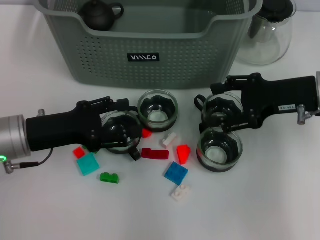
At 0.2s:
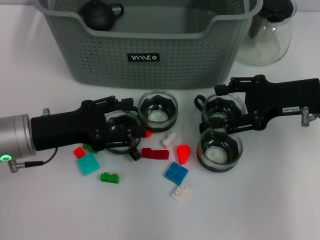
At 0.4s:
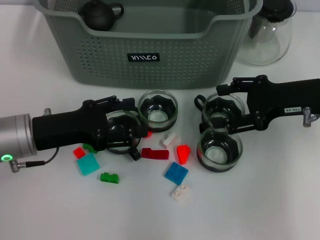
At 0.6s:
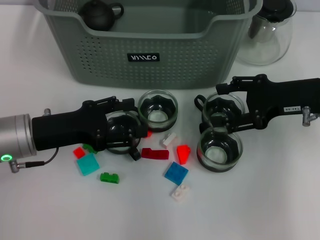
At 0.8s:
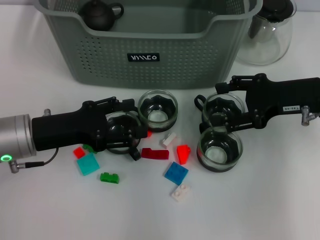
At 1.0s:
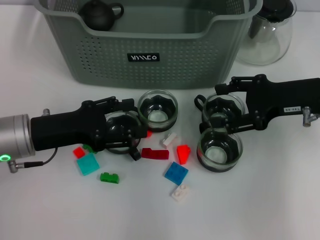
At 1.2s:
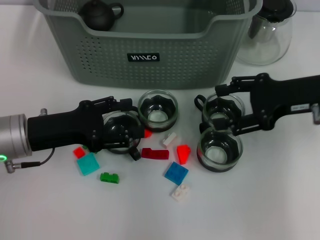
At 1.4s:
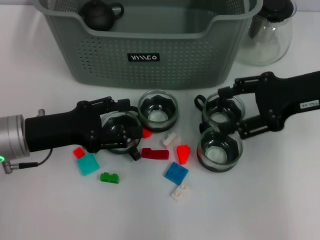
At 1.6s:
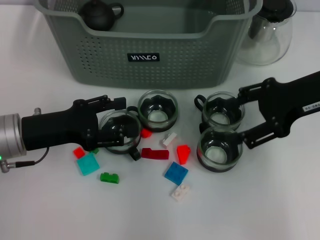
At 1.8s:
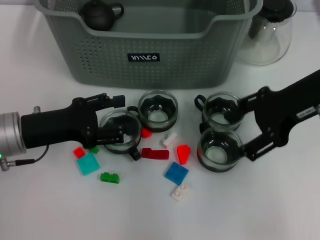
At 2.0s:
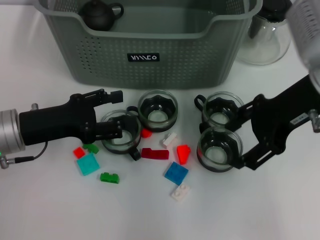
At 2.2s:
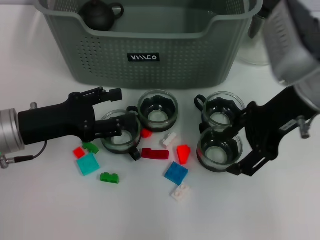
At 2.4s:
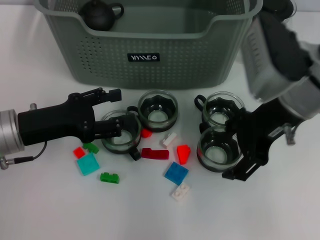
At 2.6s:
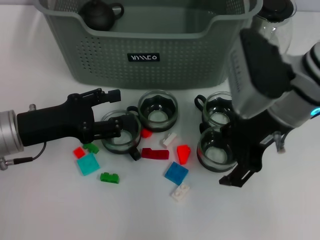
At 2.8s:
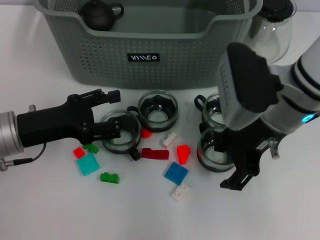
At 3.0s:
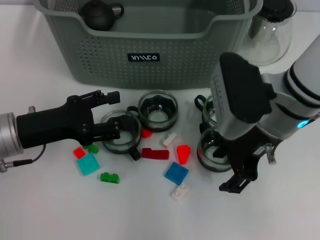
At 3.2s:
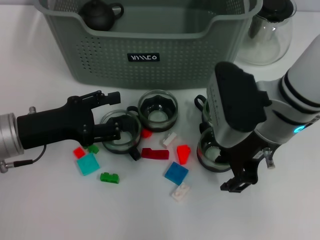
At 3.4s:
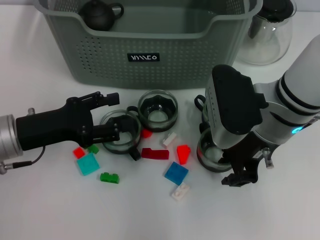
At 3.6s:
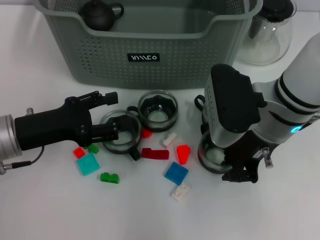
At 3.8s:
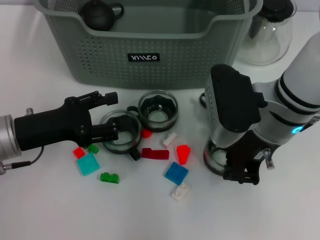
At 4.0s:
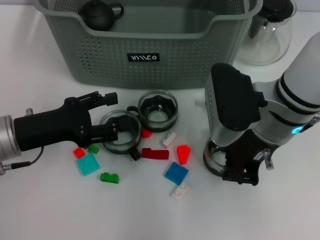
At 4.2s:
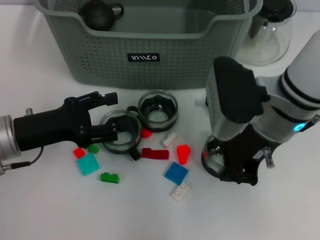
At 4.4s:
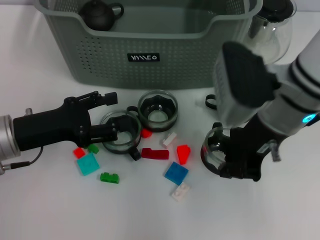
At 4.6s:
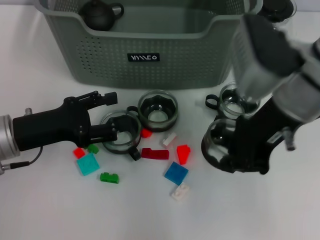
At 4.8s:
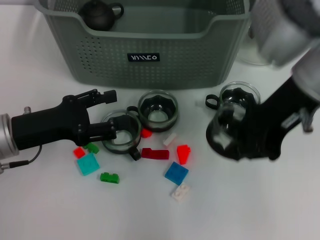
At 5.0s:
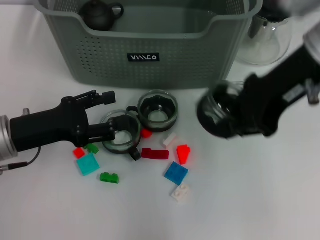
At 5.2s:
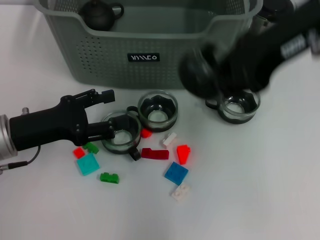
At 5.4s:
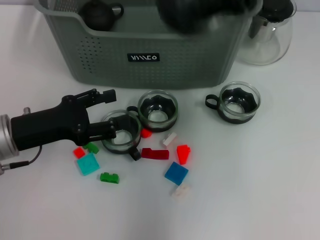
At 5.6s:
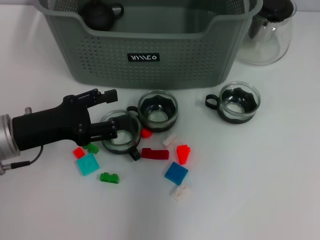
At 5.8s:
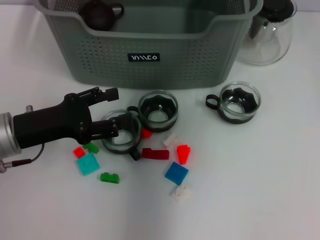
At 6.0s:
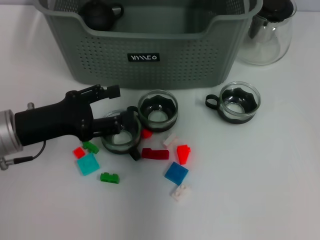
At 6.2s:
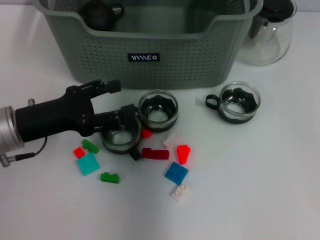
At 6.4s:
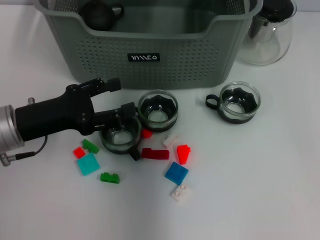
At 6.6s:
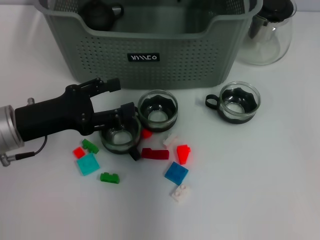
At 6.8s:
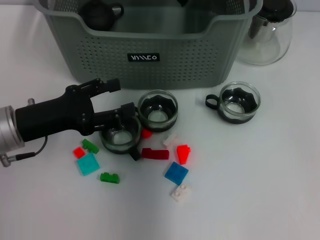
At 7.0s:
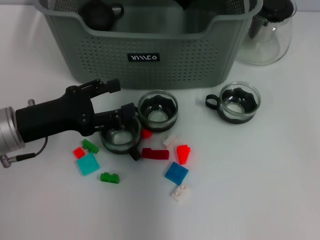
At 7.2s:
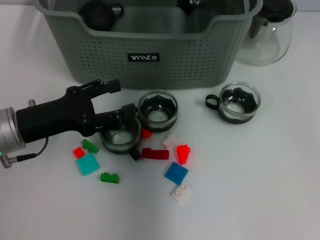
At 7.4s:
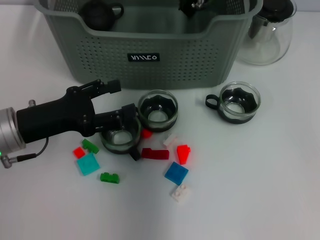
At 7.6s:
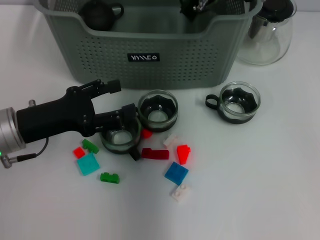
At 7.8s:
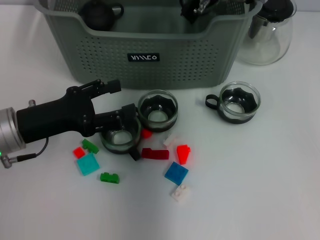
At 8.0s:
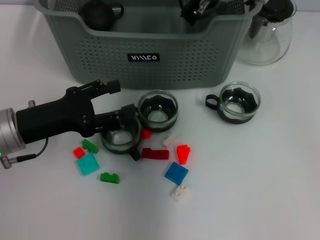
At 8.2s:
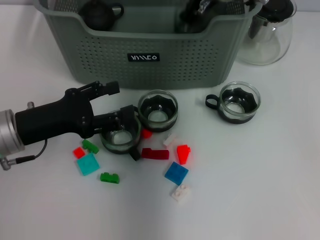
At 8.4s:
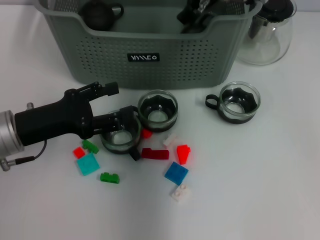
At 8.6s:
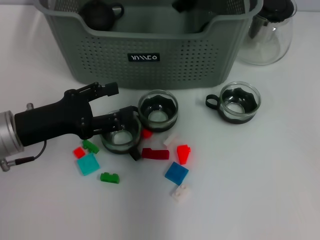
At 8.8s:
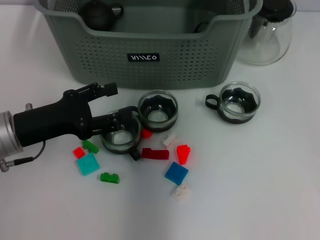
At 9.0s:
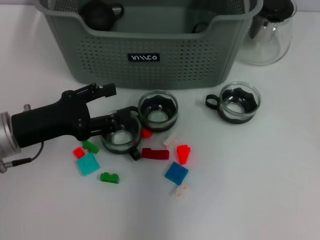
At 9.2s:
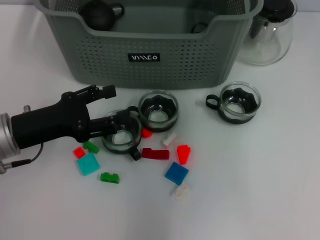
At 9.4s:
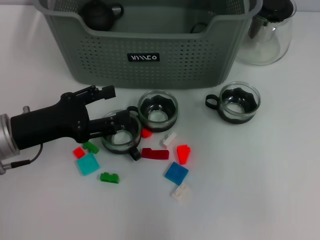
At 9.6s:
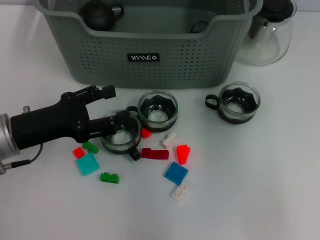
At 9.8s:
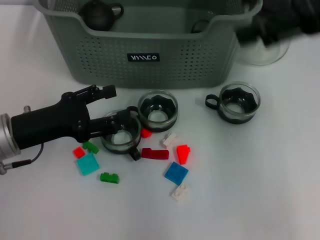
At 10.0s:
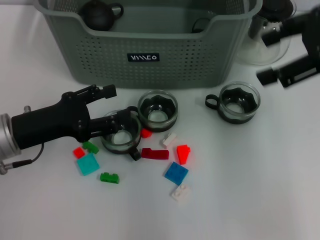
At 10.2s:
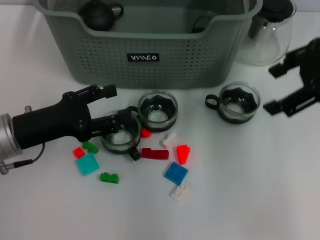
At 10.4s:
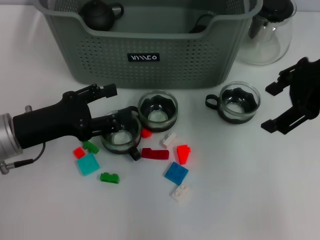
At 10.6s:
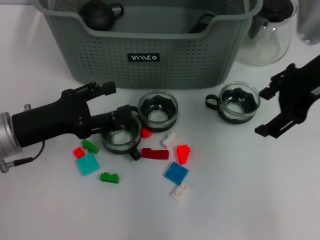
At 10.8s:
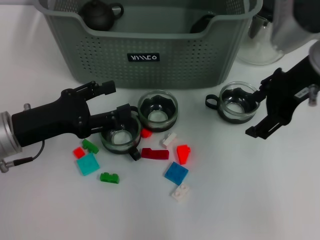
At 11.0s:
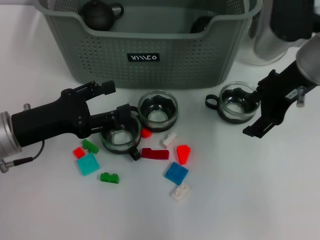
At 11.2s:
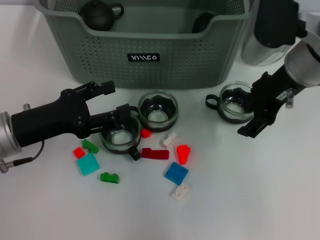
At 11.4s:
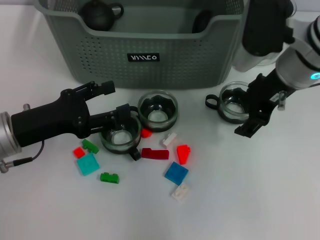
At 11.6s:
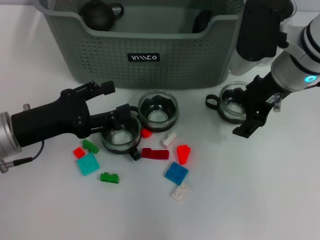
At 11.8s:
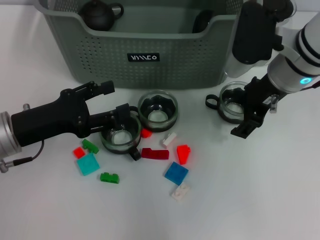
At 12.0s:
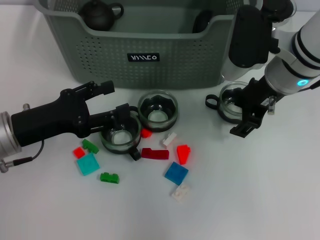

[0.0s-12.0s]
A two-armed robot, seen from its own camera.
Task of the whole recording: pick up the teacup on the table and place it into the storage bin, pick up the block on the table and place it into the storage bin.
Step, 0.0s to 3.8s: Grasp the cup with right gripper.
Step, 4.0s to 8.4s: Place the cup in the storage box with right gripper.
0.0s to 1.6s: The right gripper heads upward, covering some 5 cm.
1.6s to 3.0s: The right gripper moves to the left, roughly 10 cm.
3.0s to 4.4s: The right gripper closes.
4.4s to 6.0s: The right gripper heads forward and upward, covering some 20 cm.
6.0s to 7.6s: The right gripper is displaced downward by some 10 cm.
7.6s to 9.0s: The right gripper shifts about 15 cm upward, and opens its fingers.
9.0s to 10.4s: The right gripper moves to the right, backward and downward, roughly 20 cm, and opens.
10.4s to 12.0s: The right gripper travels downward and to the left by about 10 cm.

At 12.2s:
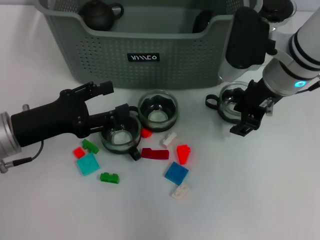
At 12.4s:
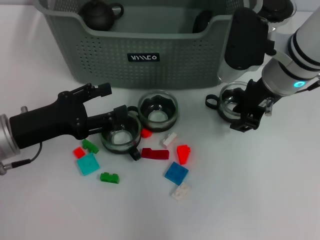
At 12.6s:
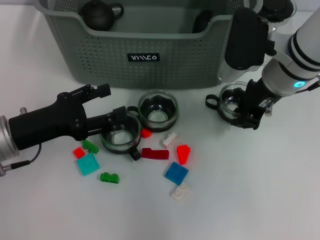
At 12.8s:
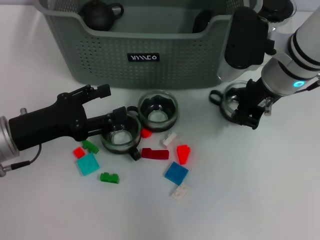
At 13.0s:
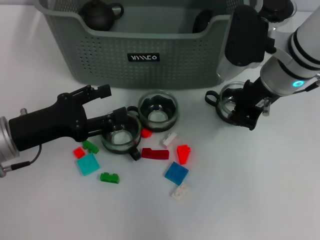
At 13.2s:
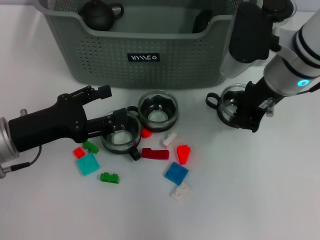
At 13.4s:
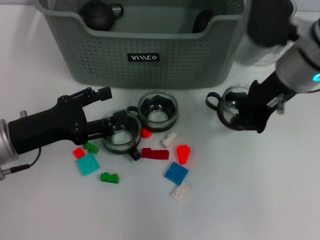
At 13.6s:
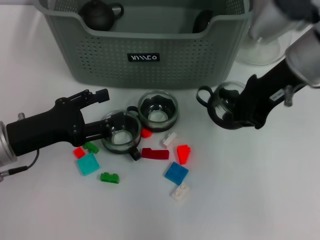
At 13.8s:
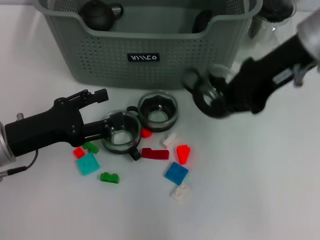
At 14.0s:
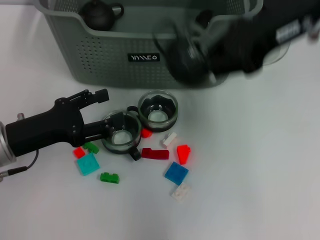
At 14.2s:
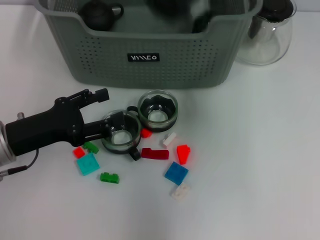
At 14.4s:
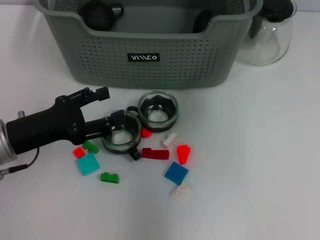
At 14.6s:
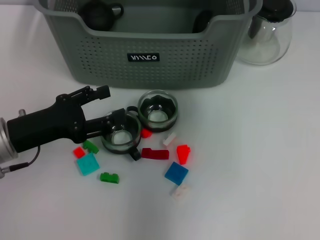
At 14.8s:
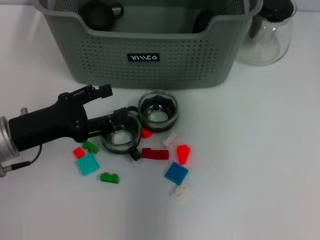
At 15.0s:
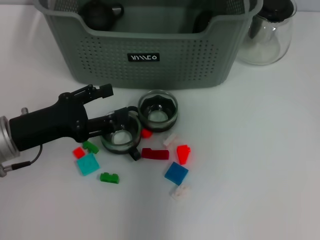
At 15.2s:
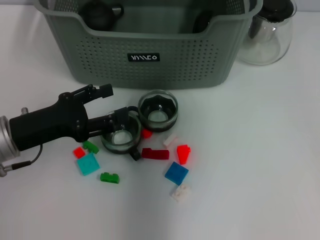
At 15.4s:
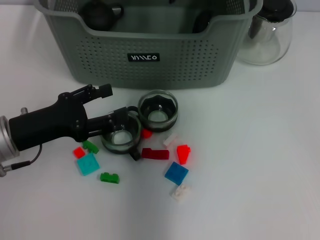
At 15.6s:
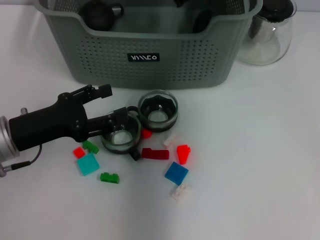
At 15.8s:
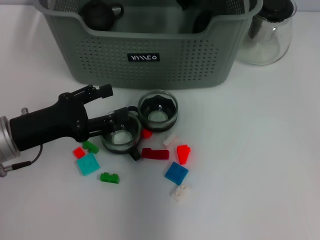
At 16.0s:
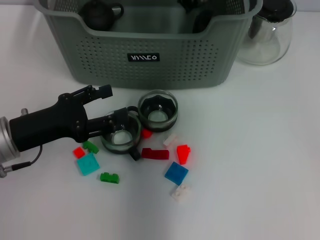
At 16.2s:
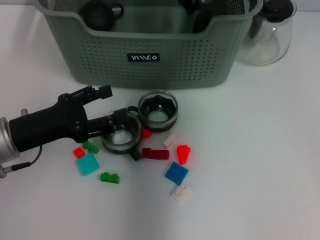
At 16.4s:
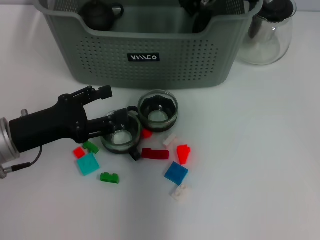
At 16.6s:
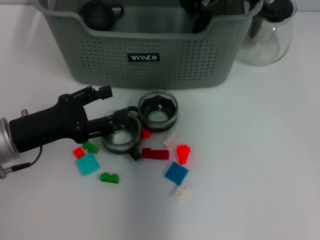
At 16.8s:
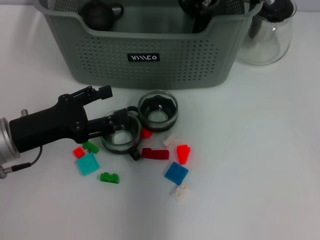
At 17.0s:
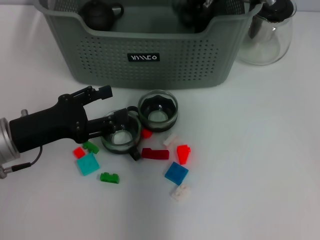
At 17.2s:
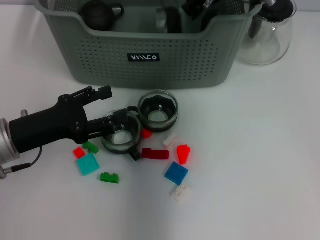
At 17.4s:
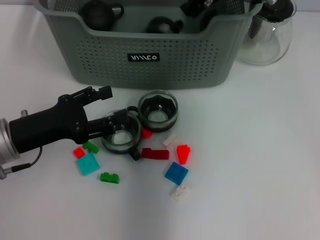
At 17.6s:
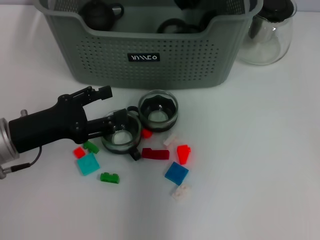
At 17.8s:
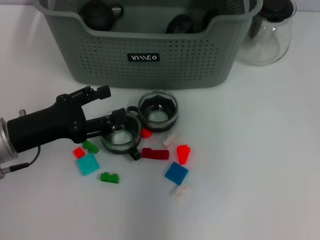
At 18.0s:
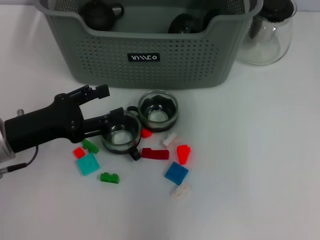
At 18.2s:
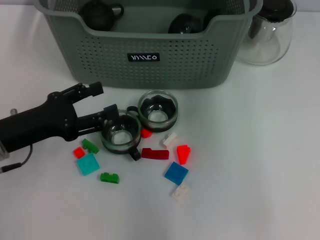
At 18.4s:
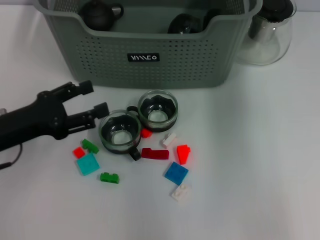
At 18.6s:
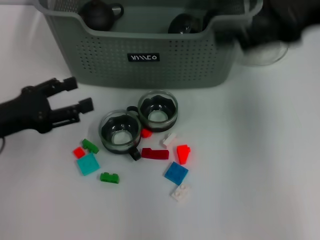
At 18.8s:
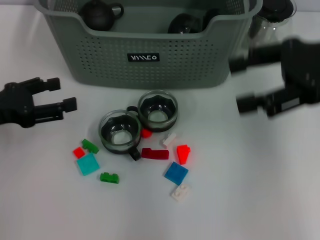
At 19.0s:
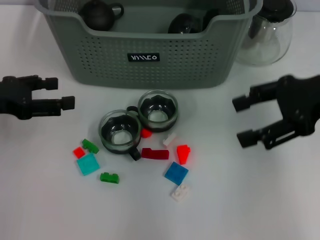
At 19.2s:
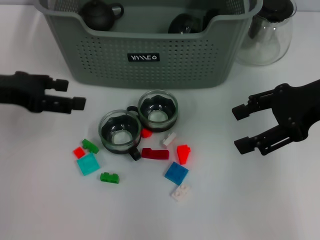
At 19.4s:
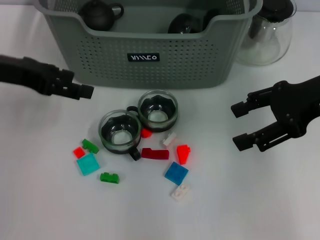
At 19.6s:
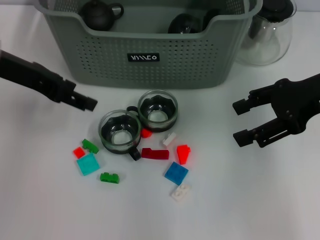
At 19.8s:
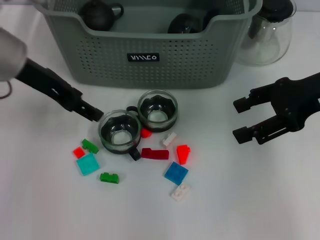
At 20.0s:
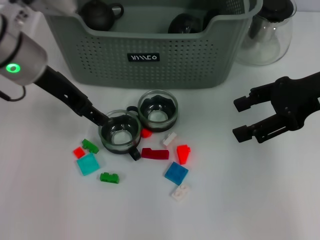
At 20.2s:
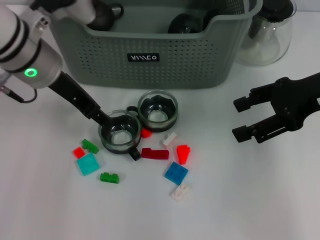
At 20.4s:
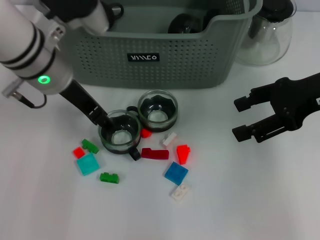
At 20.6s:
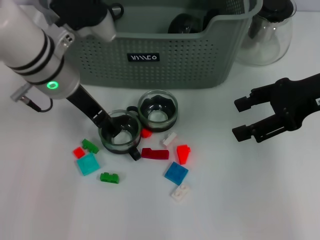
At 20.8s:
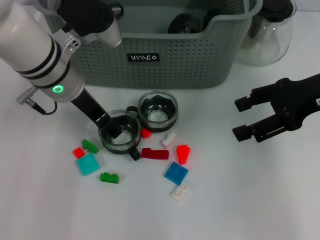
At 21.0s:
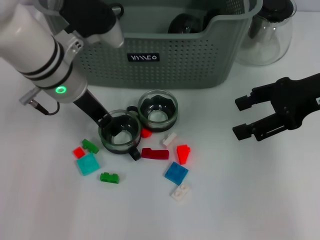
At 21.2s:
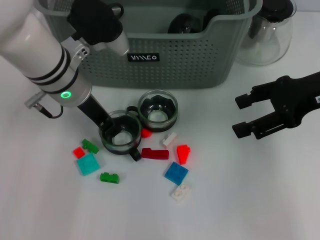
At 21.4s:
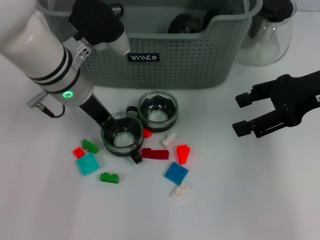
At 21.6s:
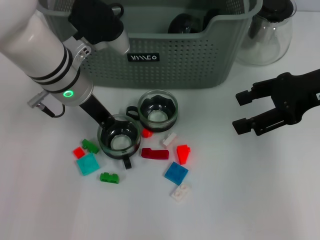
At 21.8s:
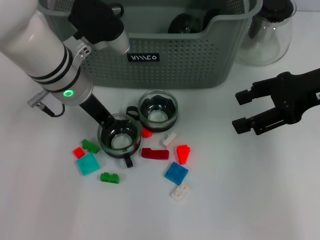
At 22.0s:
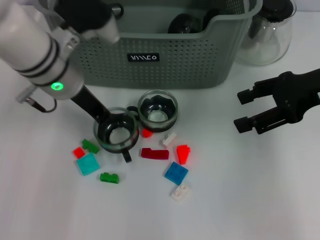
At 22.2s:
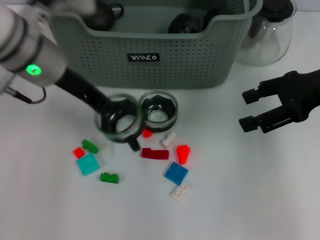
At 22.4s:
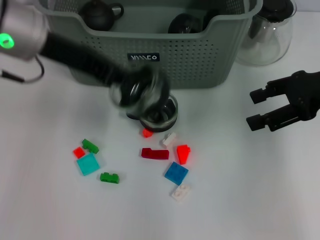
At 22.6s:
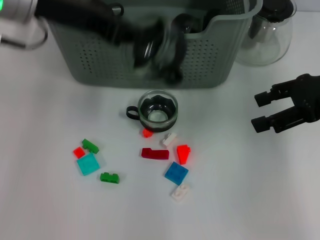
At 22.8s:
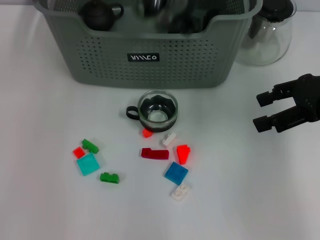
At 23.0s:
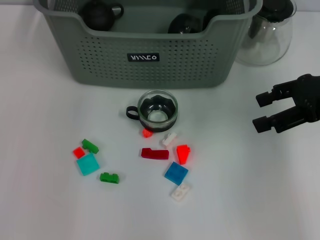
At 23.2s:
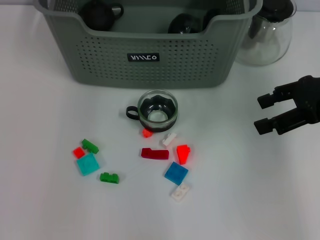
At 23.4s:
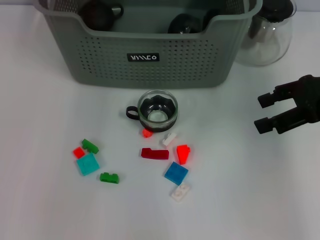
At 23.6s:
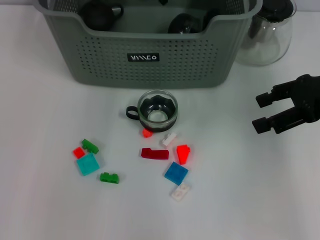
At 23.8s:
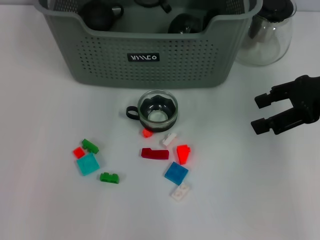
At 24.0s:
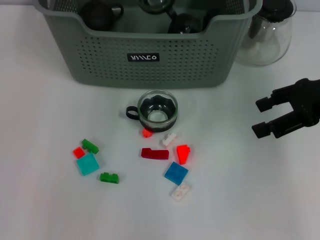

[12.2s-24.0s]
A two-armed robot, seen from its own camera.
Task of the whole recording: pick up the teacup on the table and place it into the storage bin, pick up the block on the table and place it into the storage bin.
Step, 12.8s to 17.4s: Place the cup in the storage box with right gripper.
Step, 17.6s to 21.6s: Grasp the cup with left gripper.
12.2s to 13.6s: The right gripper heads upward, covering roughly 5 cm, and closes up.
13.6s to 15.2s: The right gripper heads forward and to the left, covering about 15 cm, and travels upward and back again, about 15 cm each way.
15.2s to 16.6s: The grippers make only small movements.
16.6s to 18.2s: The right gripper is displaced upward, to the right and backward by roughly 15 cm, and opens up.
18.2s to 19.6s: The right gripper goes some 15 cm downward, to the right and backward. Meanwhile the left gripper shifts some 15 cm upward and forward.
19.6s to 21.0s: The left gripper shifts roughly 10 cm to the right and downward.
21.0s to 22.6s: The left gripper goes some 10 cm upward, and closes up.
22.6s to 24.0s: The left gripper heads forward and to the right, covering some 15 cm.
